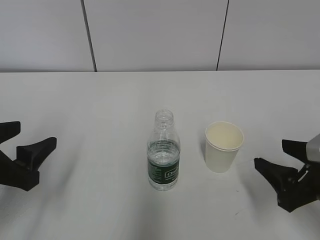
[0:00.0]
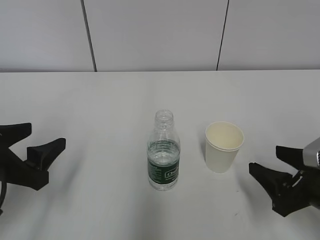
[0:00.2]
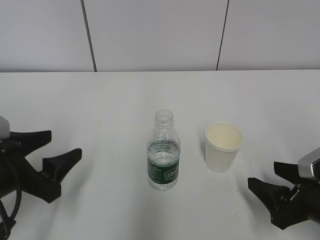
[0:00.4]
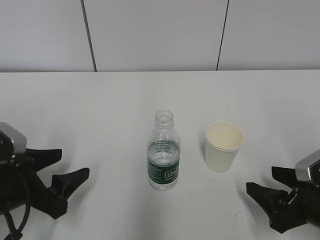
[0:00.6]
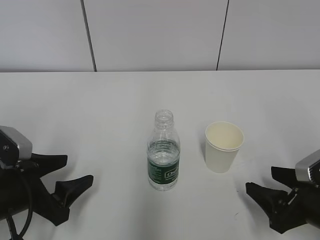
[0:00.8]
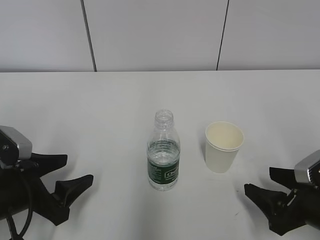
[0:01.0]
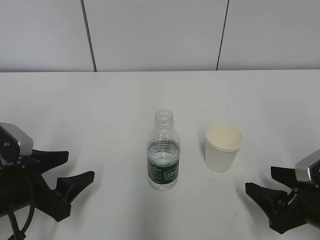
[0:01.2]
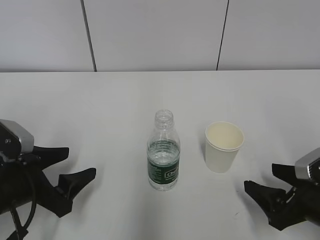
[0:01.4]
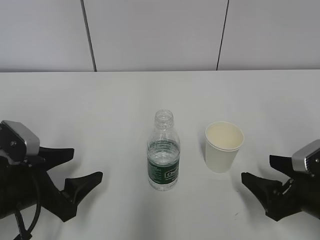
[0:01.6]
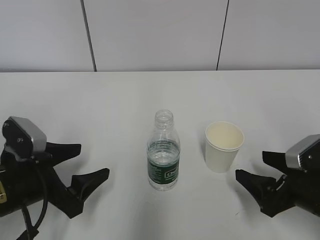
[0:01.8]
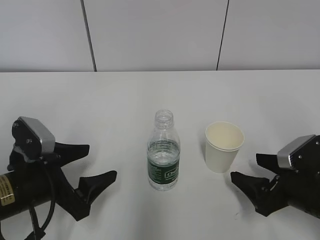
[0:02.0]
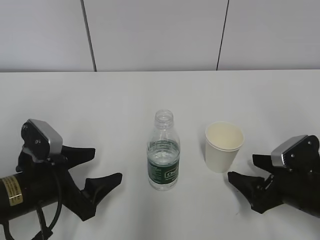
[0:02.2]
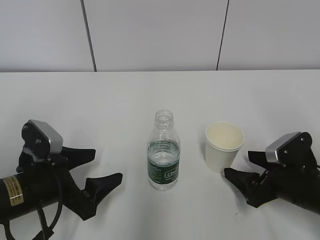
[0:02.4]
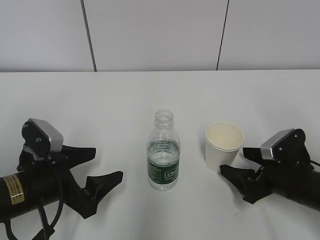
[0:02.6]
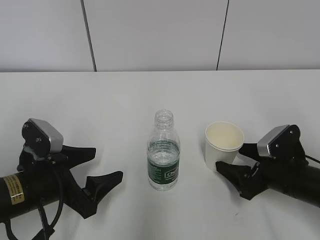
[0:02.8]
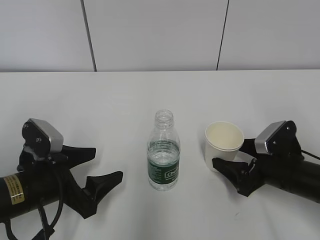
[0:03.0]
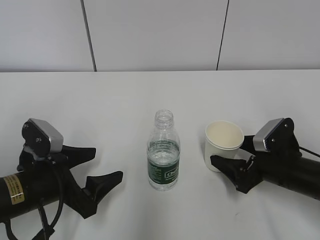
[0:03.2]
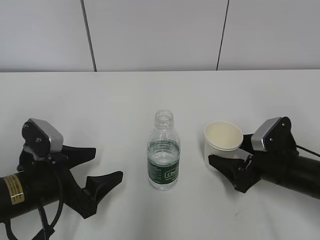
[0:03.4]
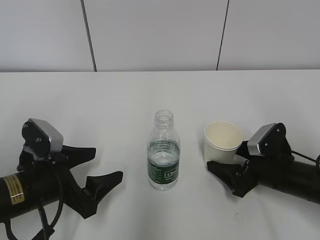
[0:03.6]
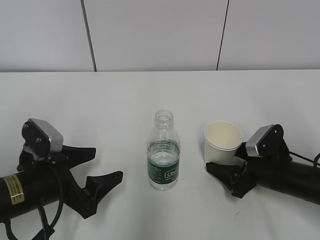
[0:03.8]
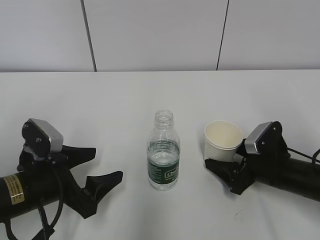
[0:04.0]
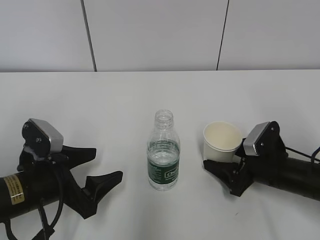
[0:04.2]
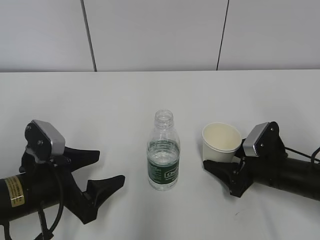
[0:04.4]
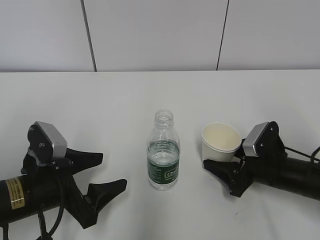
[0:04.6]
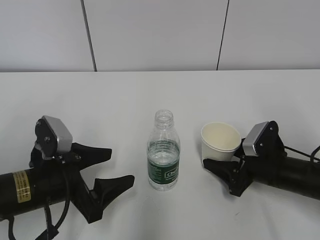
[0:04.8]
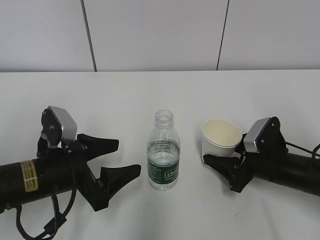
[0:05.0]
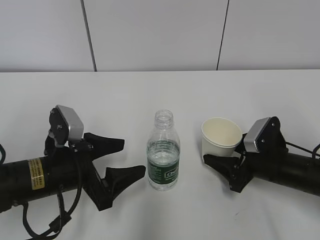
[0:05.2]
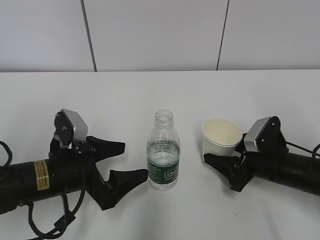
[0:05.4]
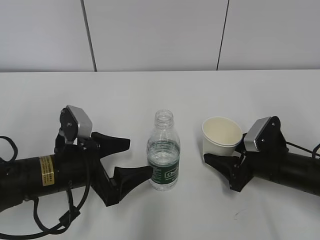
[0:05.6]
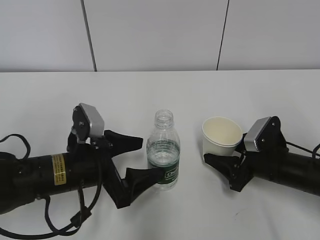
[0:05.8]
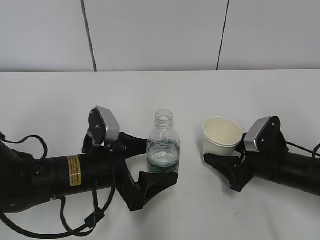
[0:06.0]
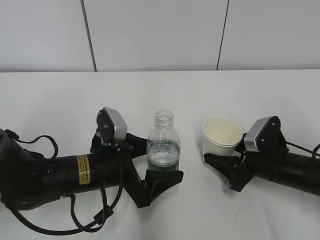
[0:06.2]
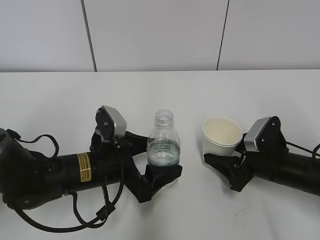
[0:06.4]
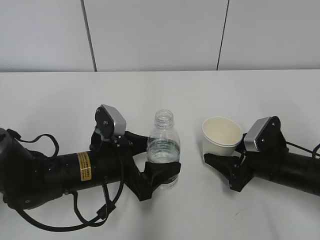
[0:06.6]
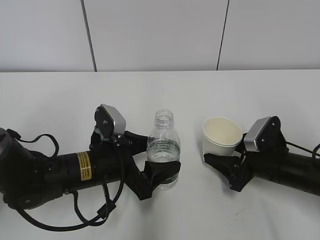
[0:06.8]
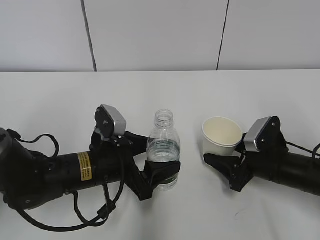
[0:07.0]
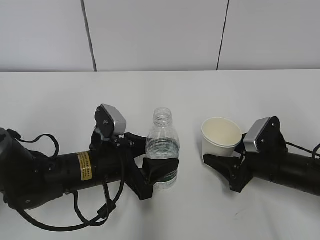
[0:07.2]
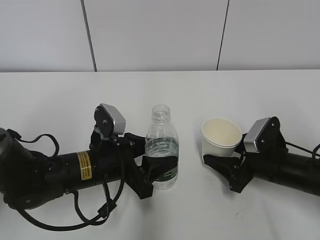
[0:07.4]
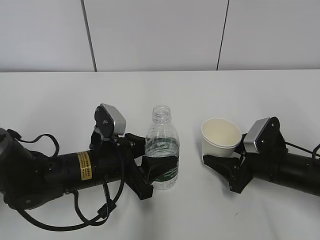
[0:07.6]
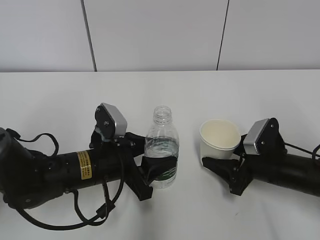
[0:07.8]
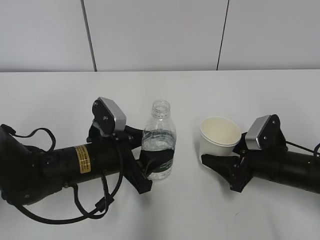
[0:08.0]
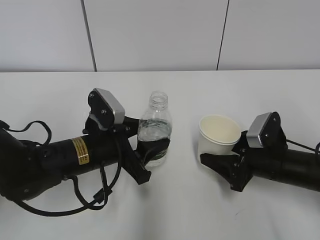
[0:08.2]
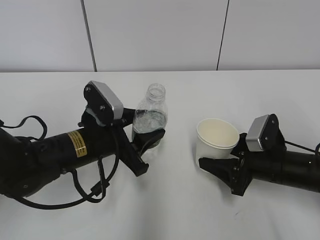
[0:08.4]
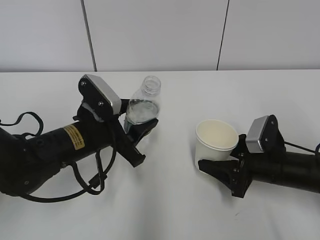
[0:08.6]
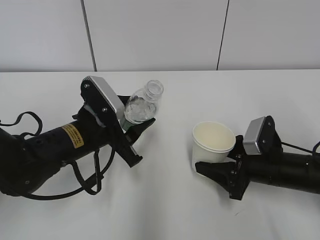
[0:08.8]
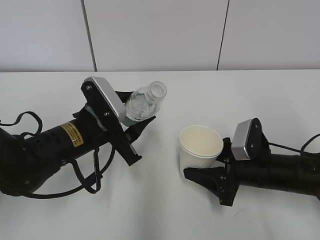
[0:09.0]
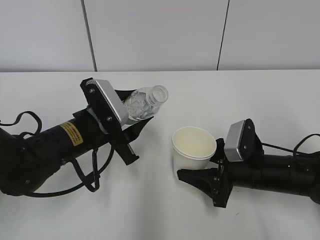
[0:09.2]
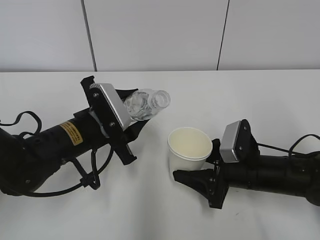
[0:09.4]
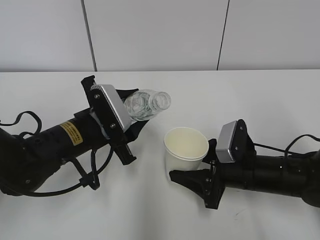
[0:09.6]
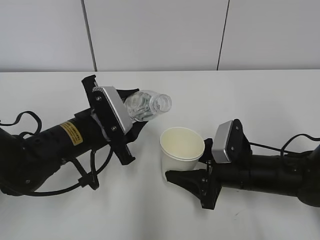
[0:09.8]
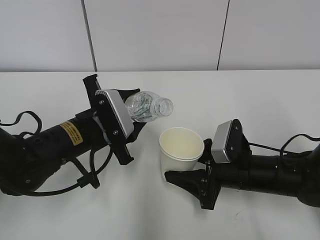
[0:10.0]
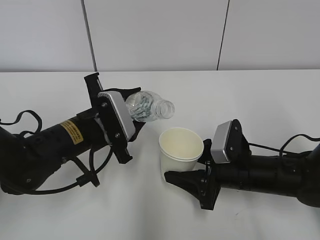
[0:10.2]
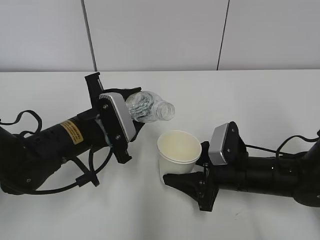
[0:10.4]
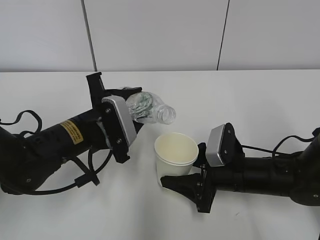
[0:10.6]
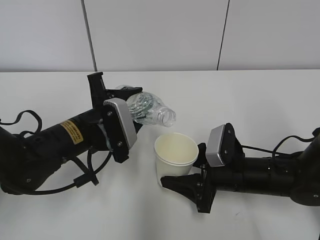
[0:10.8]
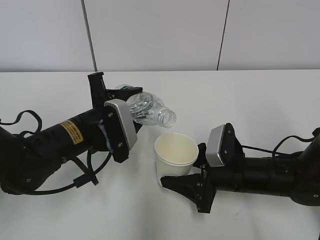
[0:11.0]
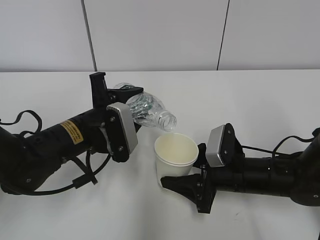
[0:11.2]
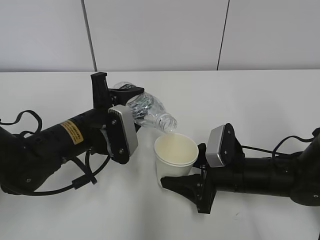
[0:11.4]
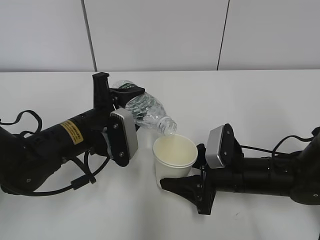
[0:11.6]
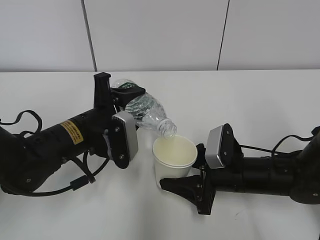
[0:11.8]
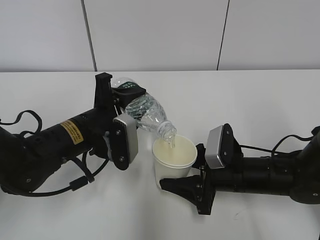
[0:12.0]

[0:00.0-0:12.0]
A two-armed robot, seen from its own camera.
Step, 0:00.0 to 0:02.4: Grab the paper cup with the right hand.
Step, 0:04.6 to 0:08.2: Lift the paper cup with the right hand.
Step, 0:08.4 to 0:10.6: Fill water with the right hand.
Step, 0:08.4 to 0:10.6: Pour water with the left hand.
0:00.0 to 0:01.6: The right gripper opens; the left gripper goes roughly 5 cm downward.
0:01.6 to 0:03.0: The right gripper heads forward, covering approximately 5 cm.
0:03.0 to 0:04.4: The right gripper closes up.
0:04.4 to 0:06.0: The left gripper moves to the right, roughly 5 cm.
0:06.0 to 0:07.6: The left gripper closes its fingers.
0:07.6 to 0:09.0: The left gripper changes place by some 5 cm.

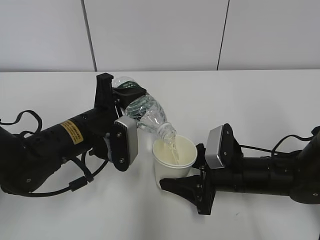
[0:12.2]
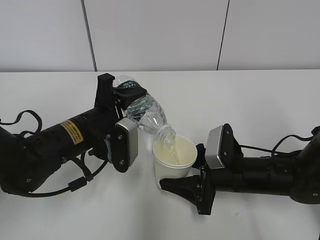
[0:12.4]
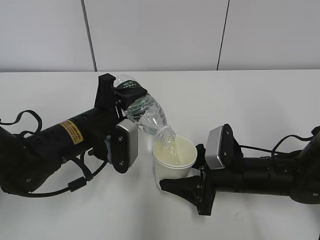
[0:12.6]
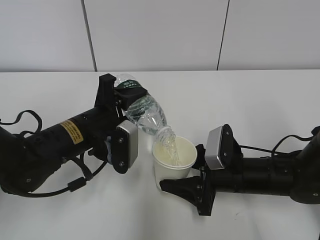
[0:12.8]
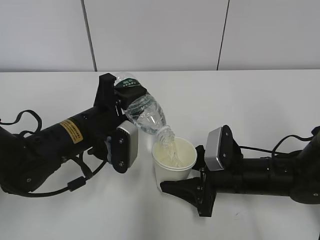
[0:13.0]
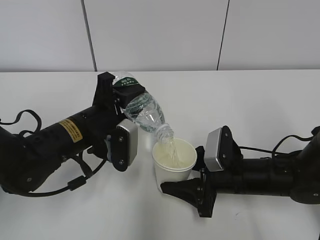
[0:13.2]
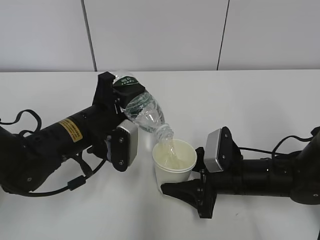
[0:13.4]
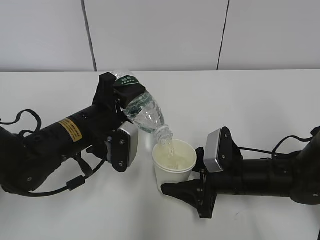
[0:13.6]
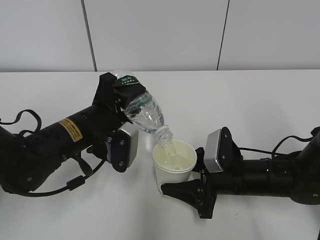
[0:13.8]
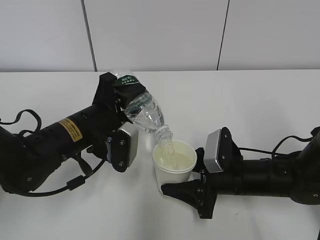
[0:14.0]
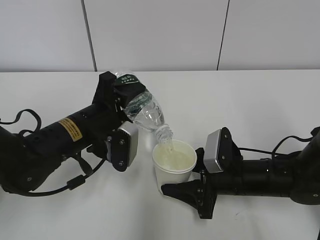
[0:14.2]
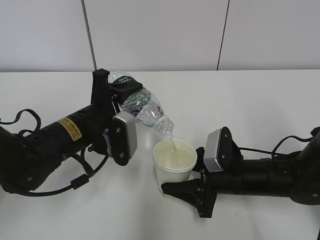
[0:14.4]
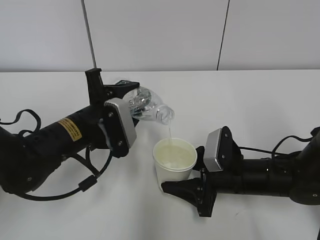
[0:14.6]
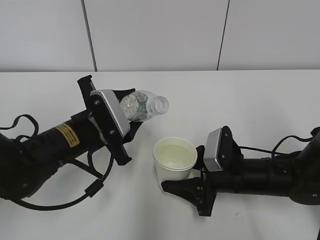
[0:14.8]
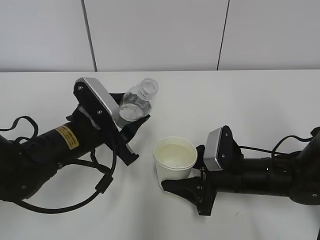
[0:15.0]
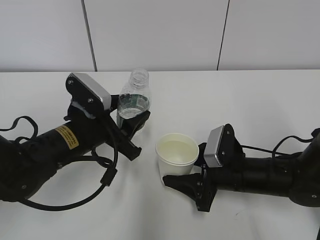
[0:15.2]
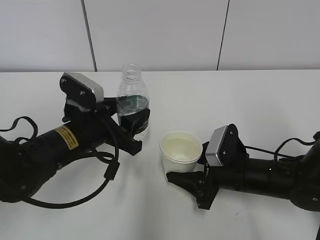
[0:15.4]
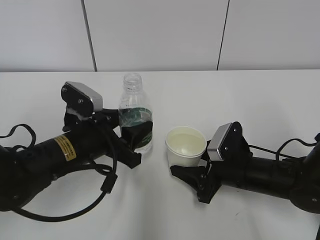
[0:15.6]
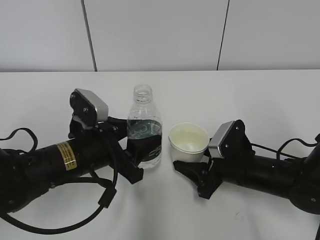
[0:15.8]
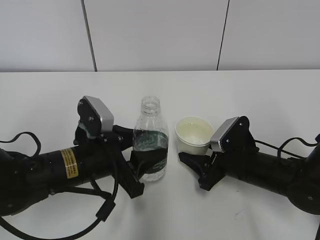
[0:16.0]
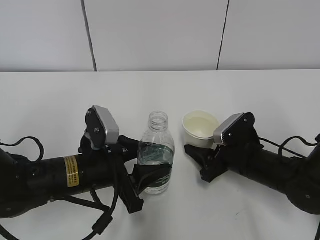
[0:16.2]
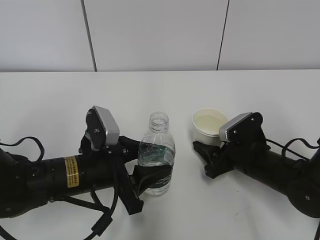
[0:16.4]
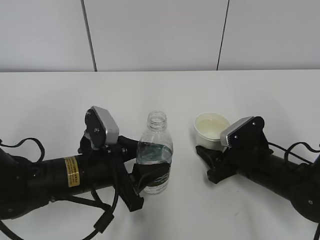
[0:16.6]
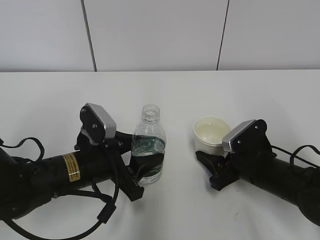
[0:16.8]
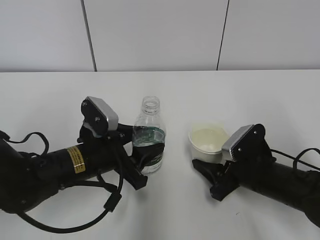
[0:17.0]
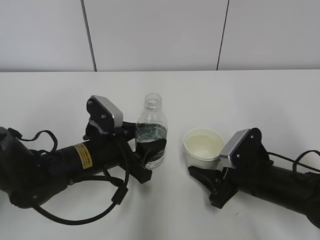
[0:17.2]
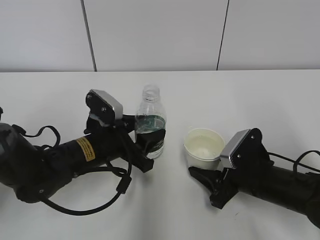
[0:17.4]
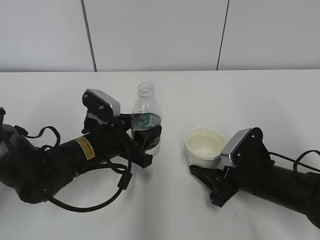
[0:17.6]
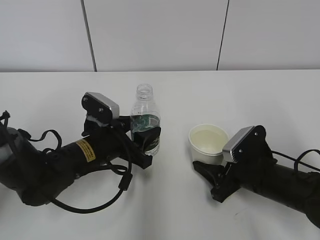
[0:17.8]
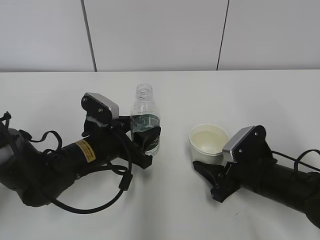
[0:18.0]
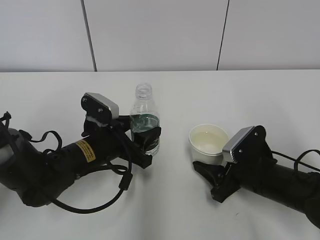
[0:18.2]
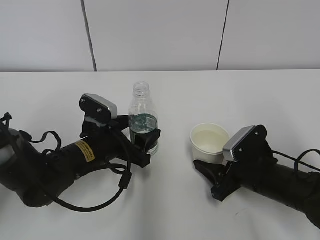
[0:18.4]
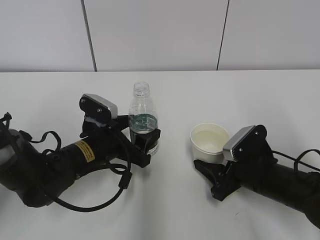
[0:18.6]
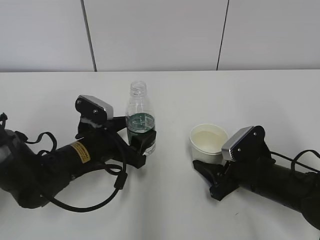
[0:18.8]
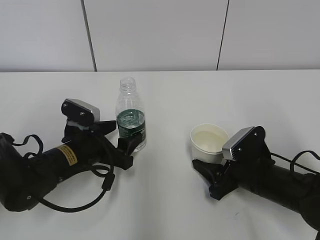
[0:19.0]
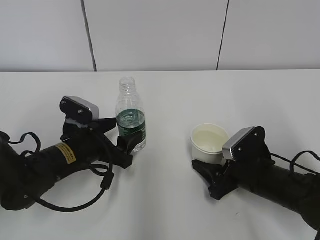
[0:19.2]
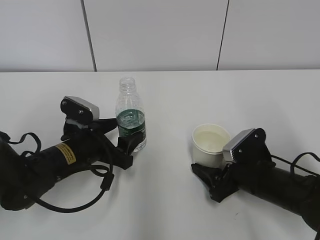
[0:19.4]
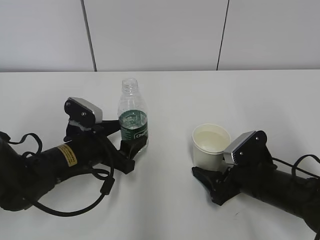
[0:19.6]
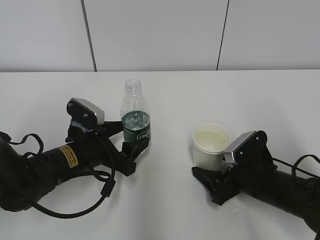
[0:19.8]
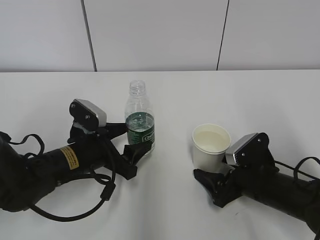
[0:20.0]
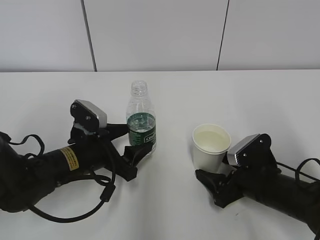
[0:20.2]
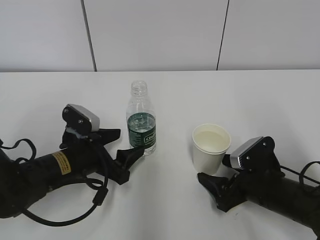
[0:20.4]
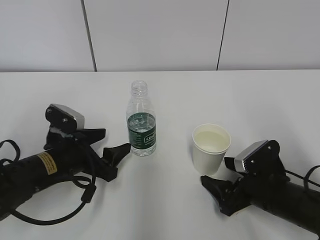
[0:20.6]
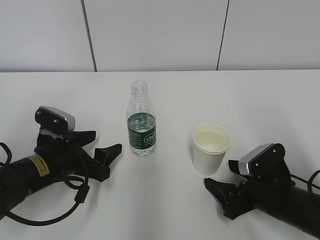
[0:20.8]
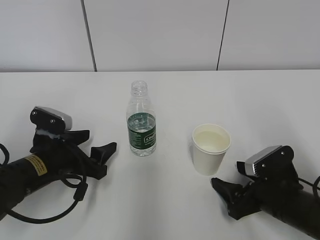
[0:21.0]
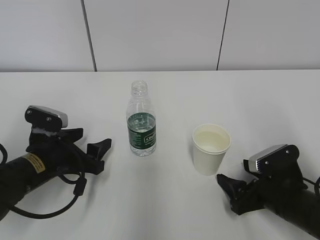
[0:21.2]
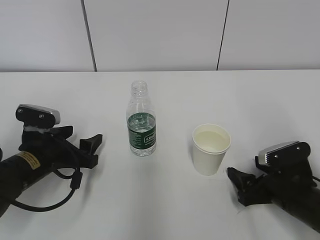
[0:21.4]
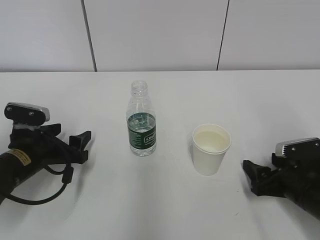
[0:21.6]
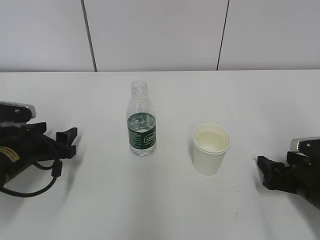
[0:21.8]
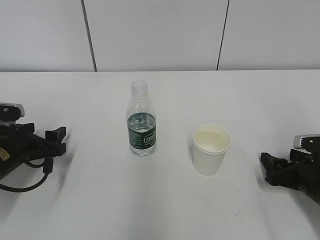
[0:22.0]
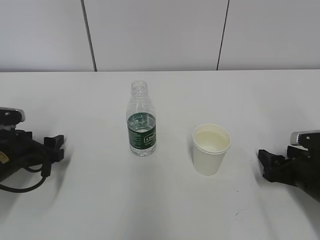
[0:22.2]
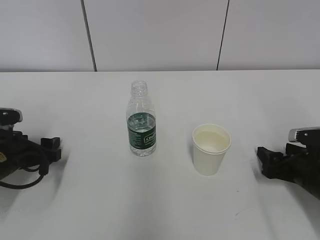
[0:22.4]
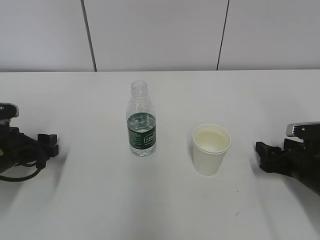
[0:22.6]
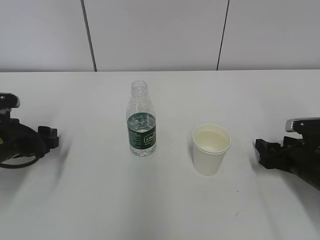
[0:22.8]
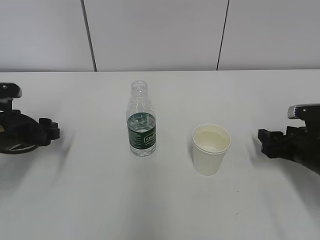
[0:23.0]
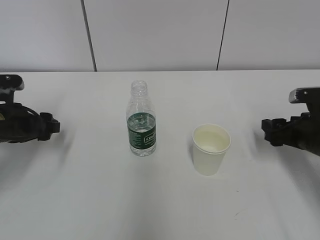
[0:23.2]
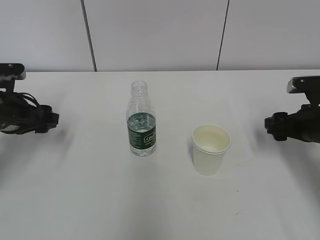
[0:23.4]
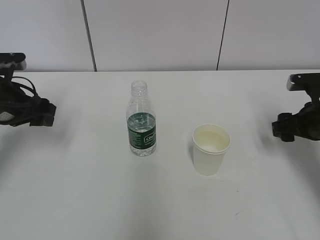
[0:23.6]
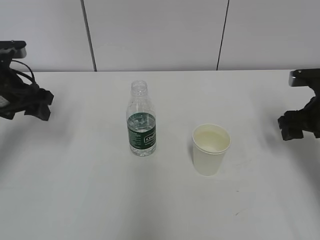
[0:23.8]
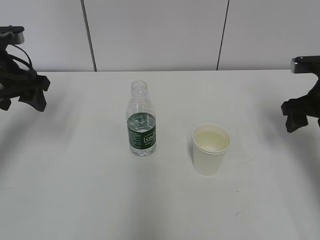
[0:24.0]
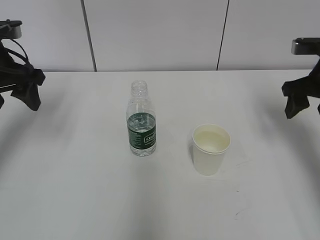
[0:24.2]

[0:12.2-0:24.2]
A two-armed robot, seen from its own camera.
Step, 0:12.2 to 0:13.6: Place the water bottle with the left hand.
Step, 0:13.8 to 0:14.4: Place the paper cup with the right hand.
0:12.2 to 0:13.8: The grippers move only a little.
0:15.2 to 0:16.6: The left gripper moves some 5 cm.
0:16.6 to 0:18.2: The left gripper is displaced forward by approximately 5 cm.
0:18.2 to 0:19.8: The right gripper opens up.
0:19.8 to 0:21.2: The left gripper moves to the left, some 5 cm.
0:21.2 to 0:22.6: The left gripper goes approximately 10 cm to the left. Meanwhile the right gripper shifts roughly 5 cm to the right.
0:22.6 to 0:24.2: The left gripper heads upward, covering about 20 cm. Meanwhile the right gripper heads upward and forward, covering approximately 20 cm.
